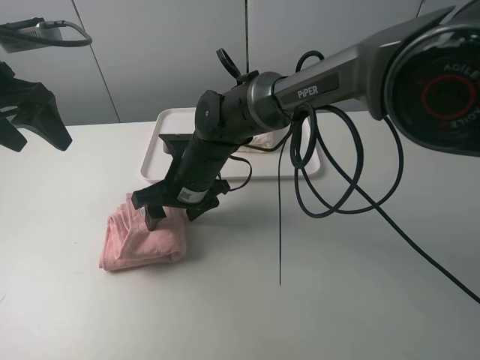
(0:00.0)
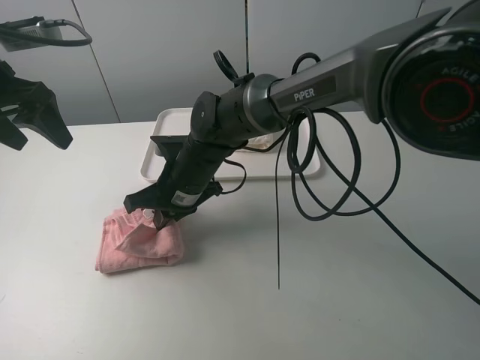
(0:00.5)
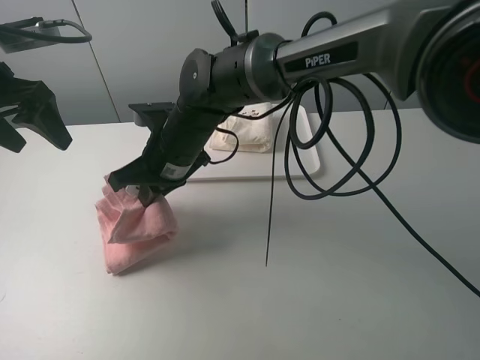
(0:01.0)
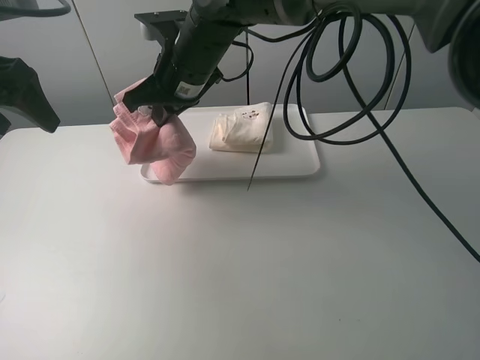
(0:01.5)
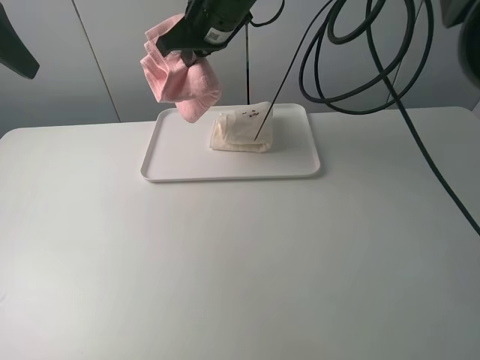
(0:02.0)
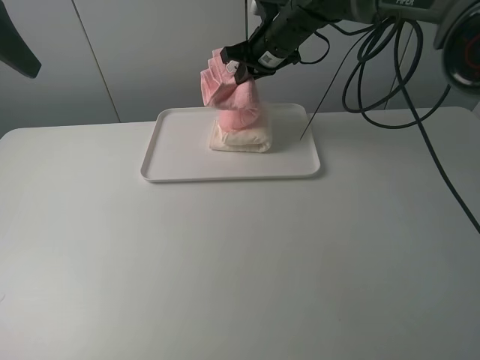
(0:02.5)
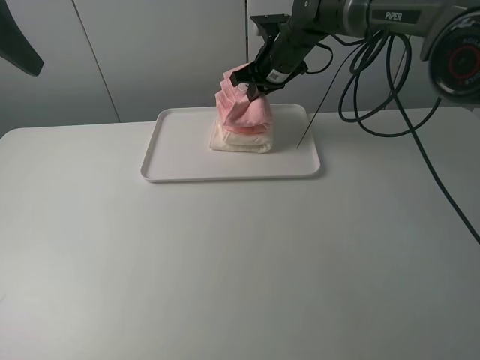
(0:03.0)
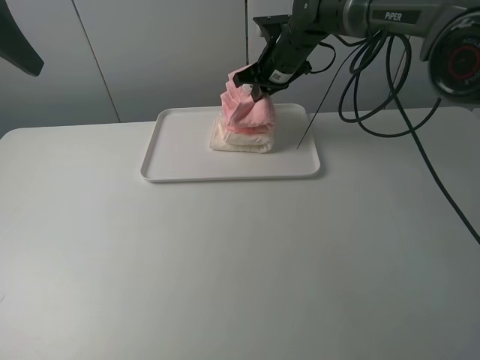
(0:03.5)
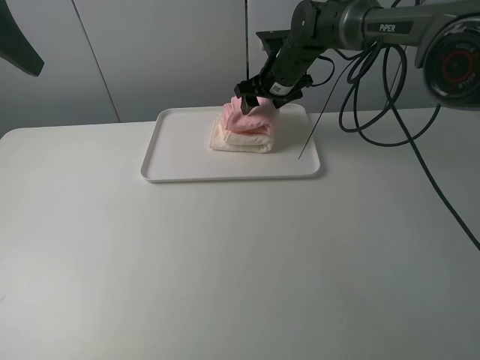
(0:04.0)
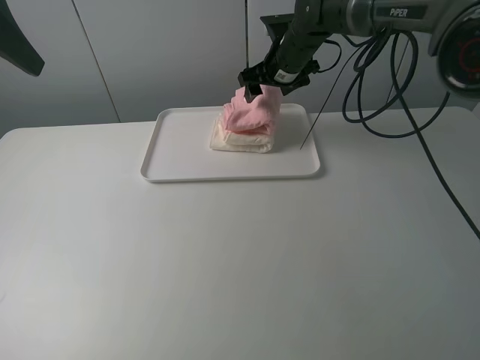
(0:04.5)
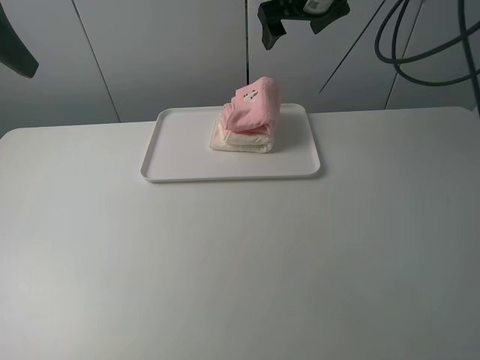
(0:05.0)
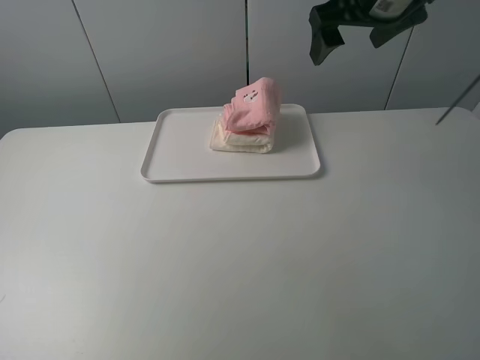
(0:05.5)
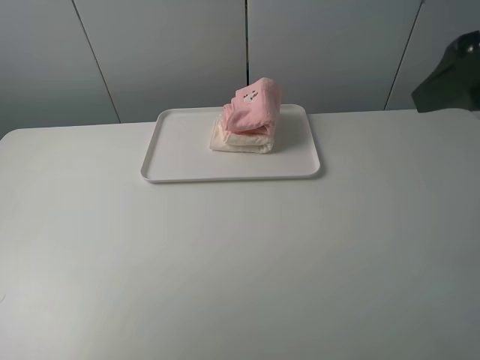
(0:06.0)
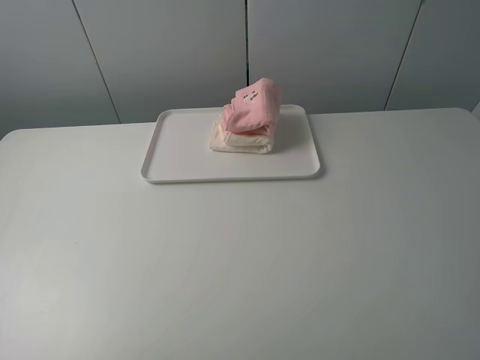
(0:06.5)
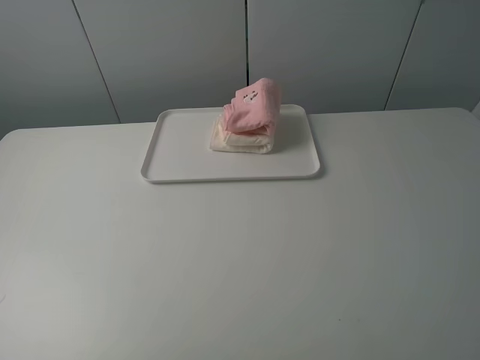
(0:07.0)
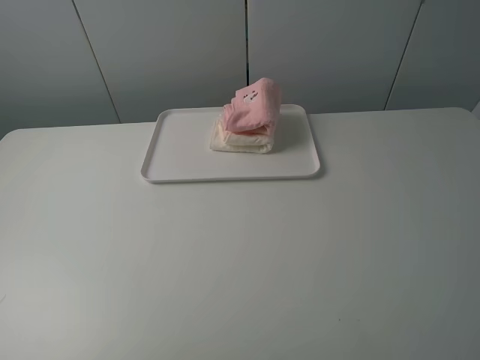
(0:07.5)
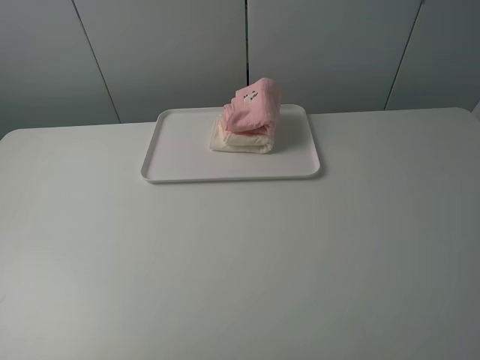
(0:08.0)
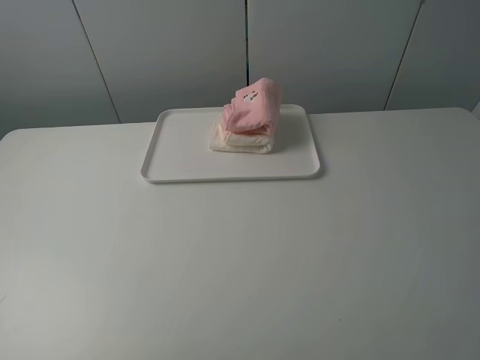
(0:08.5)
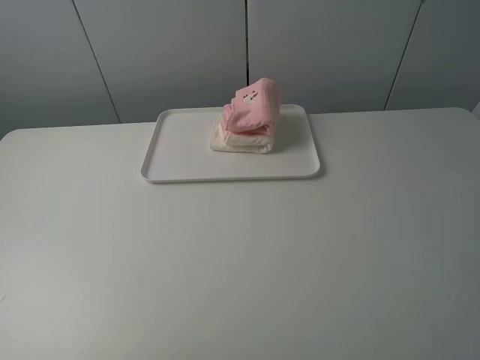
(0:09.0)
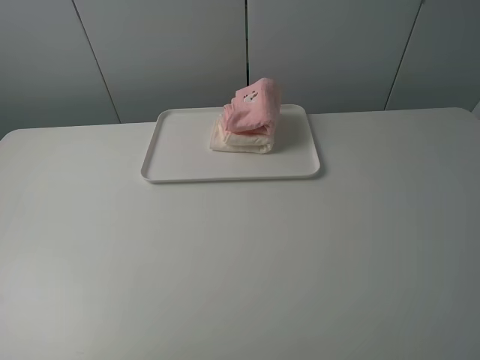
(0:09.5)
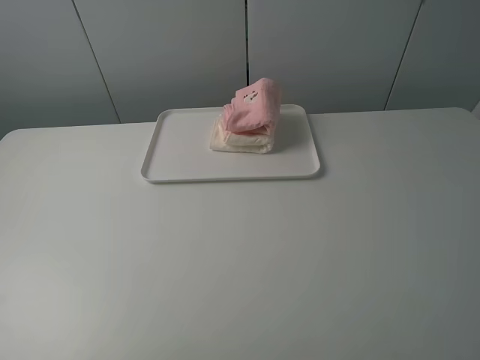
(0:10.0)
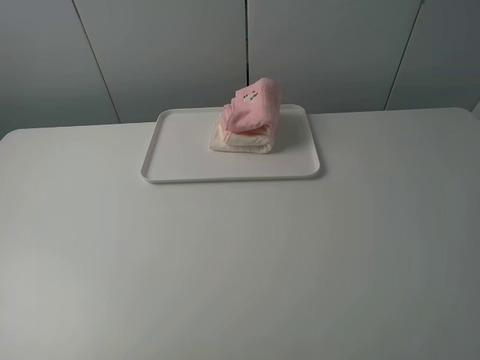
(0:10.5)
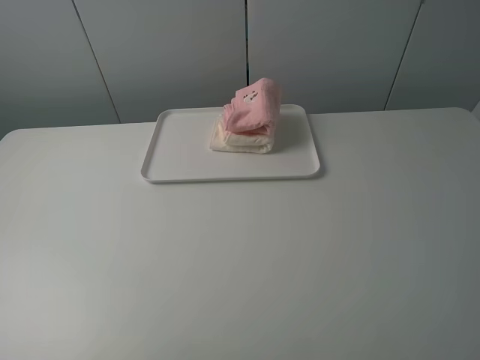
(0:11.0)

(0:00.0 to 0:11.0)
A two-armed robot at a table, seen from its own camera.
Task of the whole recording: fold one of the towels by two grippers and place it on the tray,then fold another towel by two grippers and place it on the folded towel.
Step, 0:00.5 - 0:04.5: Place the pink towel on the white towel with the right gripper.
0:00.0 - 0:02.0: The right gripper shifts about 20 cm upward and forward, and closes its fingers. Meanwhile the left gripper goes some 10 cm upward.
0:02.0 - 0:03.5: The right gripper moves downward, to the right and forward, roughly 15 cm.
0:03.5 - 0:05.5: The left gripper is displaced backward by some 10 cm. The right gripper shifts some 25 cm backward, upward and to the right, and opens its fingers.
0:05.5 - 0:07.5: The right gripper shifts roughly 35 cm backward.
0:09.0 - 0:11.0: Both grippers stay about where they are.
